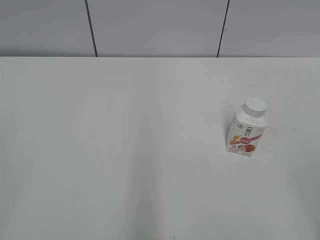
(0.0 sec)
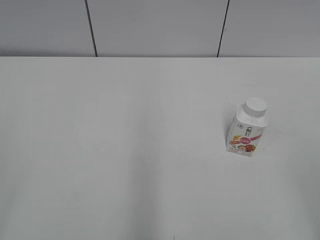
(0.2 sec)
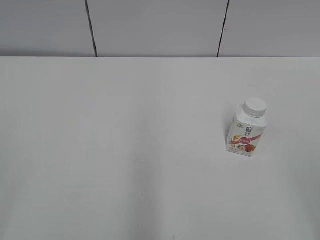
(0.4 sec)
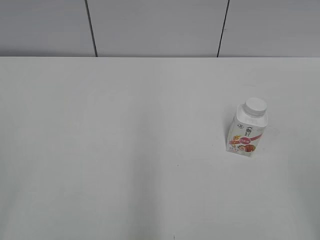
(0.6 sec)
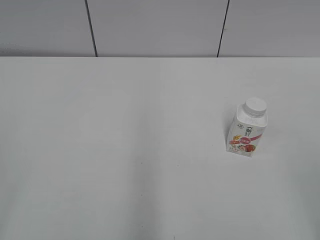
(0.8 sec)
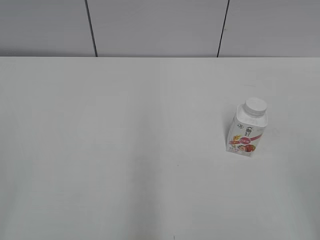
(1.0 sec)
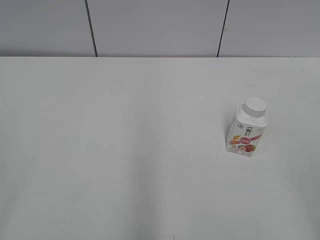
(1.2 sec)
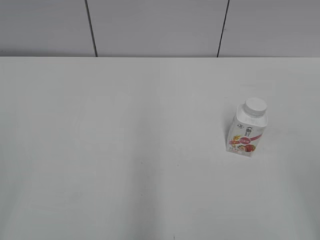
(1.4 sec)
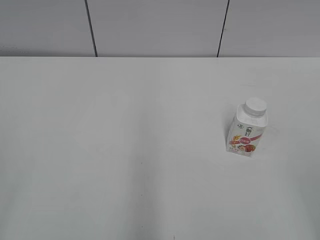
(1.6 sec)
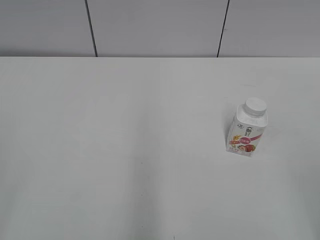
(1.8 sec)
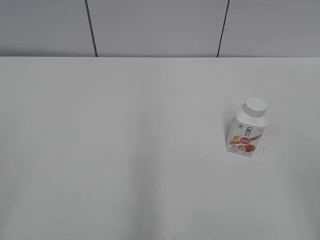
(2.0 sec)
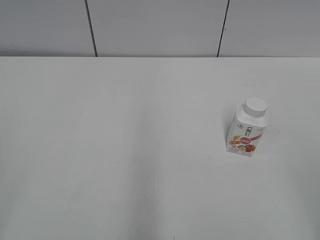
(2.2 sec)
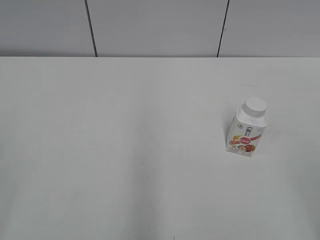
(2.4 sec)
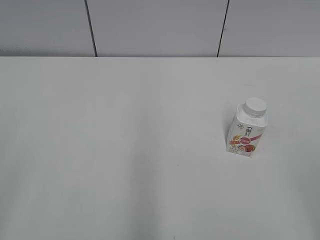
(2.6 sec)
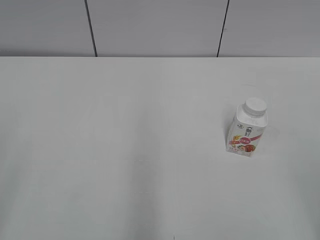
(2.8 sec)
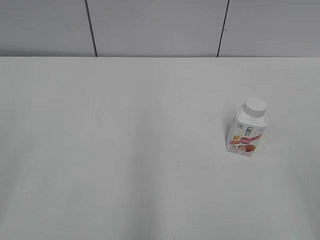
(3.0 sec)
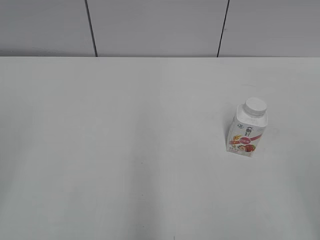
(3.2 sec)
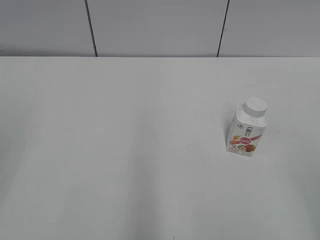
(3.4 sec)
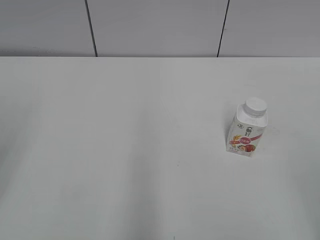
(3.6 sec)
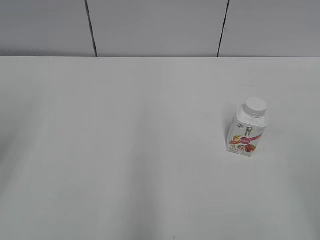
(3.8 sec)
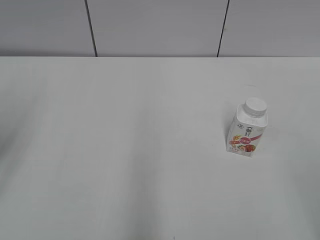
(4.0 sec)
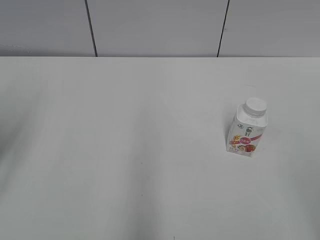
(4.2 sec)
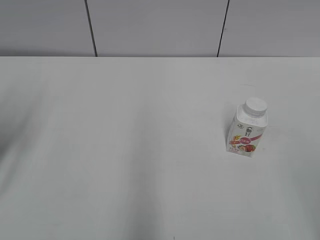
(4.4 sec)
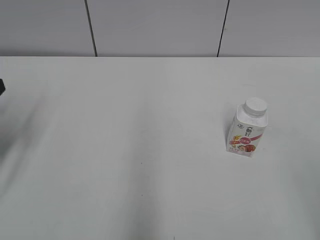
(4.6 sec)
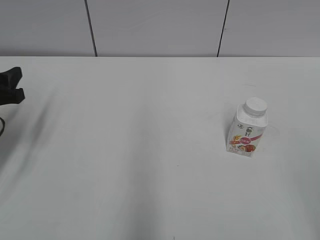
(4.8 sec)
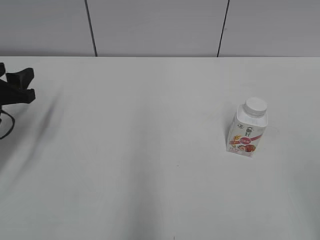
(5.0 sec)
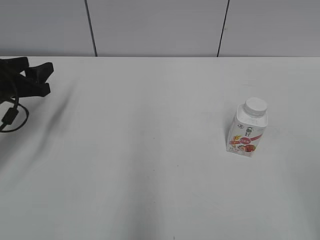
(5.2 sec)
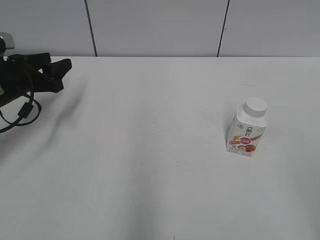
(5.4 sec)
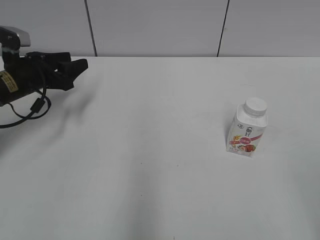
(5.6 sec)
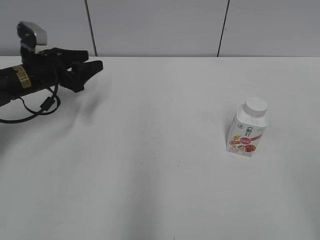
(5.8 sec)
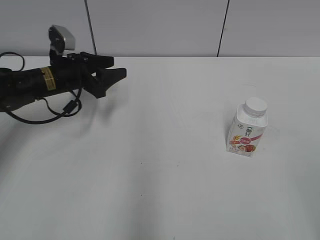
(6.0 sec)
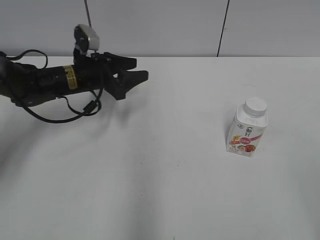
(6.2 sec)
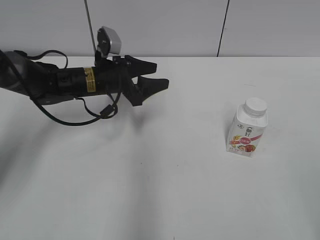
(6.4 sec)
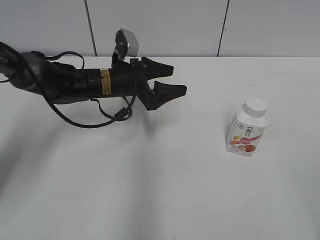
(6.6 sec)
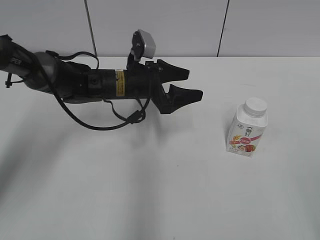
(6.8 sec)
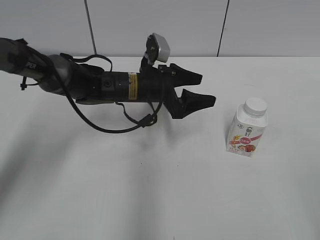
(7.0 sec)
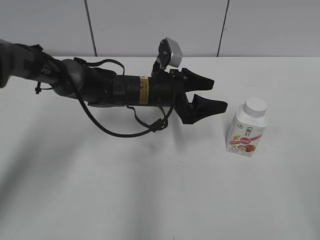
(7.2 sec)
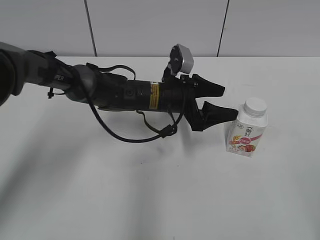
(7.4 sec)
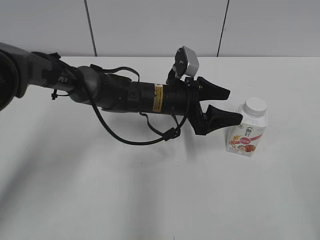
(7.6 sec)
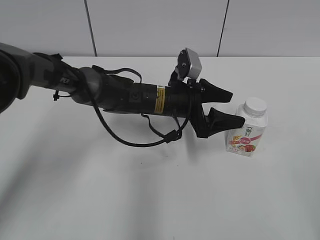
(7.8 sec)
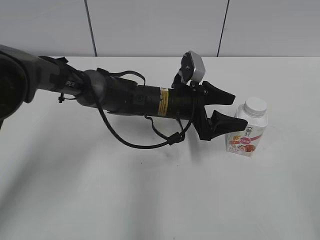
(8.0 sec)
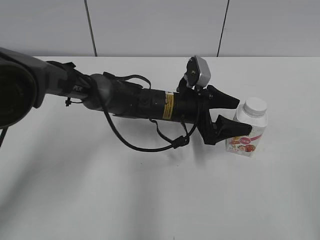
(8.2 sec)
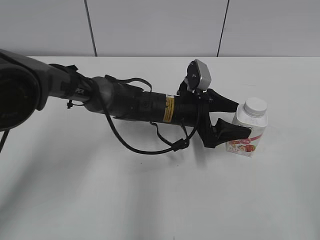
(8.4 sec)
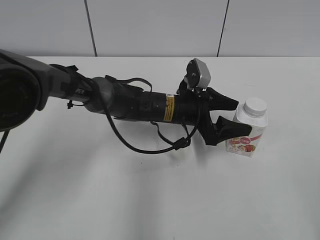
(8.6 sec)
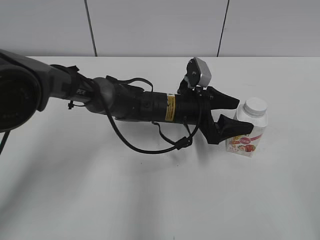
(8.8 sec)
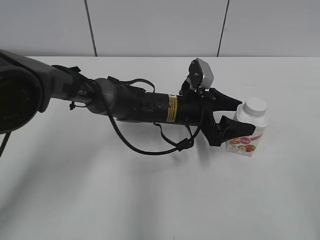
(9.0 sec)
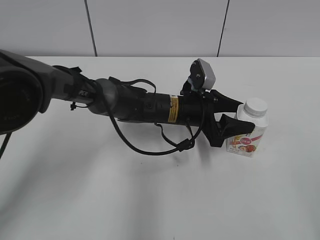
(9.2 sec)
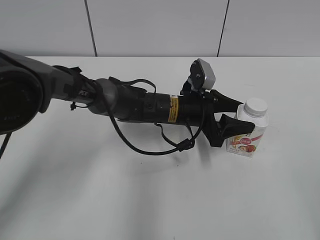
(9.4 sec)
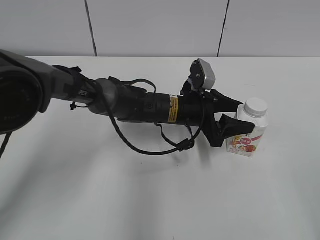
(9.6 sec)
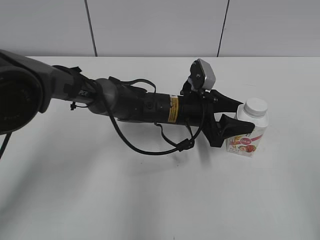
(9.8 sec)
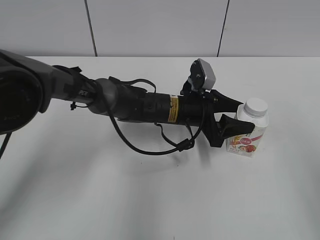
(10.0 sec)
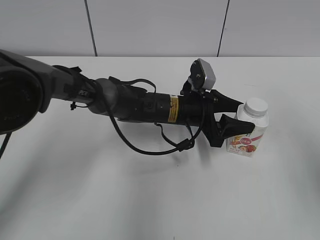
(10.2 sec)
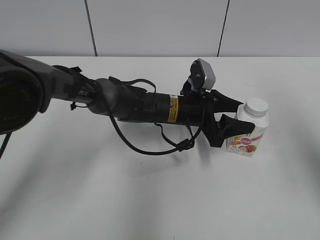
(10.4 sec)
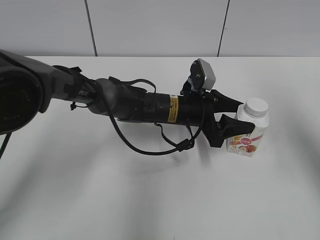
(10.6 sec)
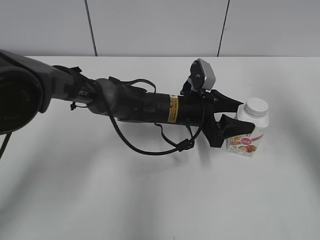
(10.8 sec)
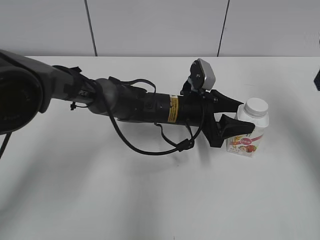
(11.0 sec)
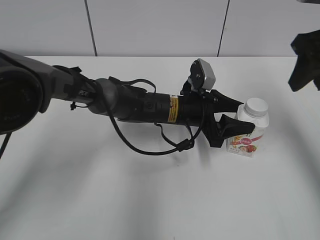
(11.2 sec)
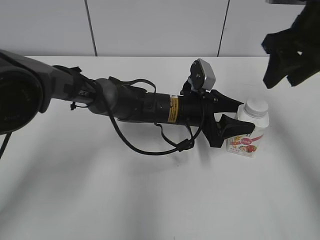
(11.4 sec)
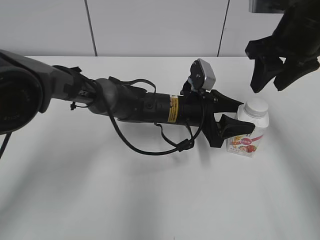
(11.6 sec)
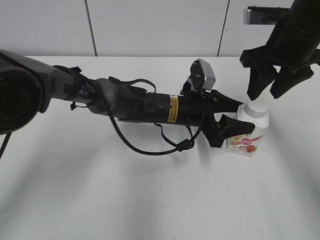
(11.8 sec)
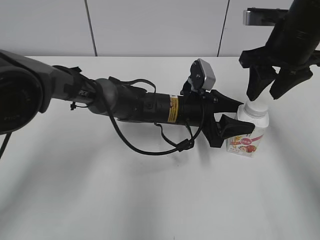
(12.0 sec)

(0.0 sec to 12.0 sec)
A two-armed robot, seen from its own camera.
Step, 0.0 sec - 9.0 sec: Grab the Yili Changqing with the left hand.
3.0 sec - 4.4 sec: The left gripper moves forward, about 20 cm.
4.4 sec - 6.0 sec: The left gripper travels forward, downward and to the right by about 25 cm.
6.0 sec - 7.6 sec: The left gripper shifts some 20 cm to the right, and opens its fingers.
7.6 sec - 9.0 sec: The grippers move only a little.
9.0 sec - 10.4 sec: The right gripper moves forward, some 20 cm.
10.4 sec - 12.0 sec: The right gripper heads forward, to the left and downward, covering approximately 20 cm, and closes up.

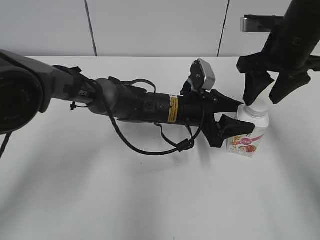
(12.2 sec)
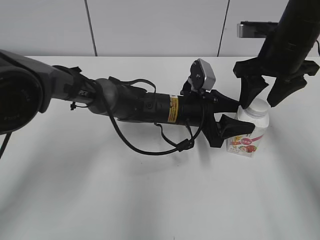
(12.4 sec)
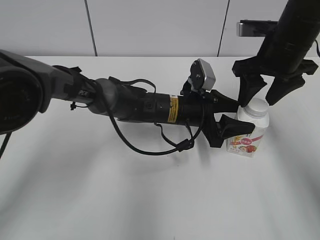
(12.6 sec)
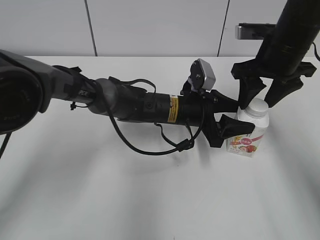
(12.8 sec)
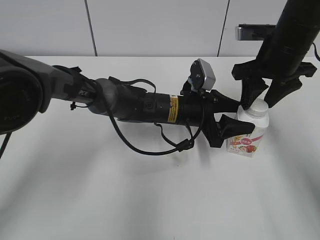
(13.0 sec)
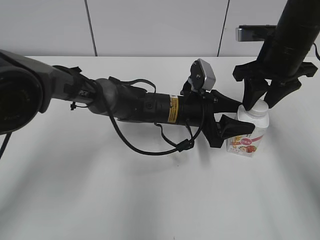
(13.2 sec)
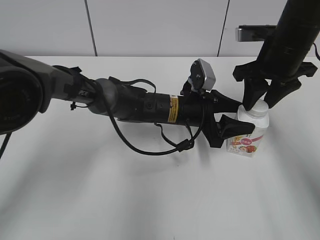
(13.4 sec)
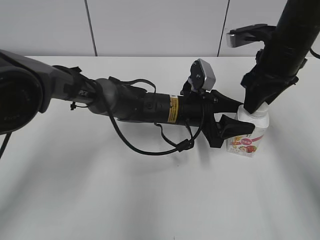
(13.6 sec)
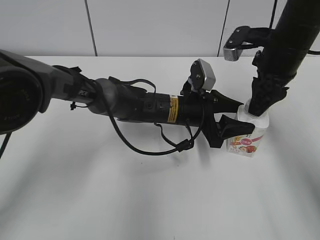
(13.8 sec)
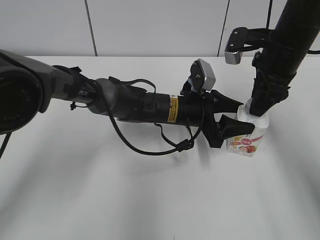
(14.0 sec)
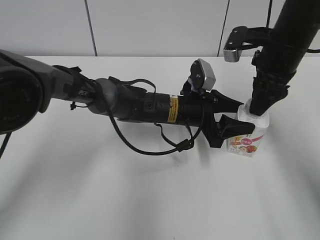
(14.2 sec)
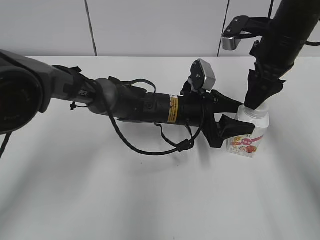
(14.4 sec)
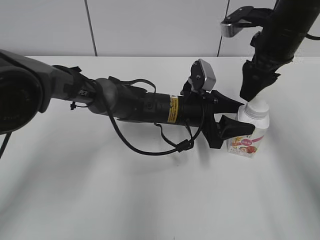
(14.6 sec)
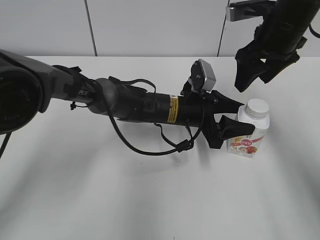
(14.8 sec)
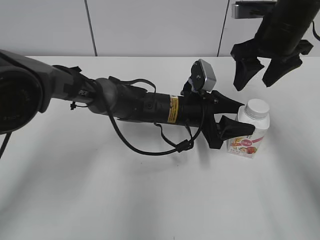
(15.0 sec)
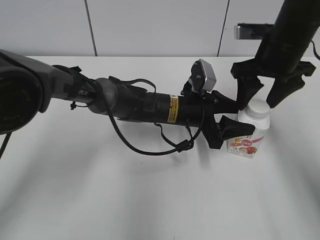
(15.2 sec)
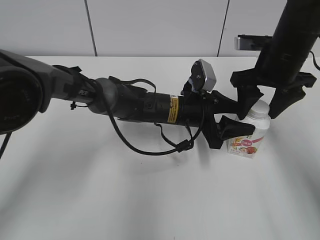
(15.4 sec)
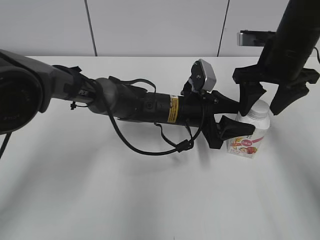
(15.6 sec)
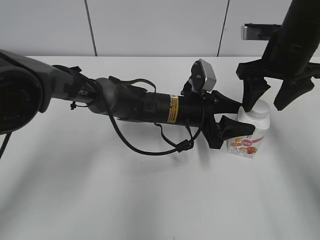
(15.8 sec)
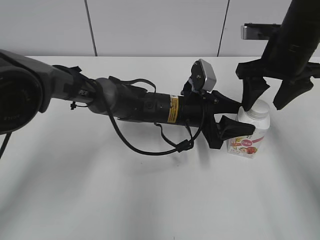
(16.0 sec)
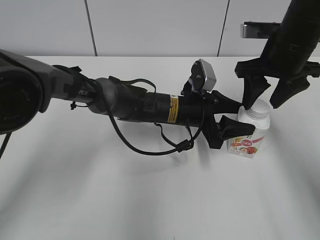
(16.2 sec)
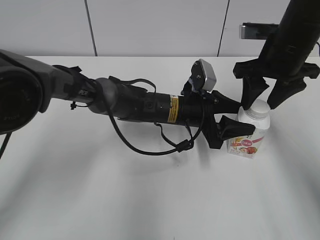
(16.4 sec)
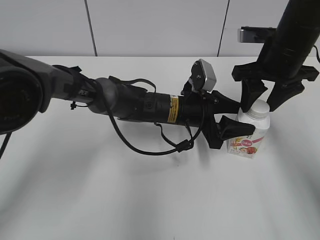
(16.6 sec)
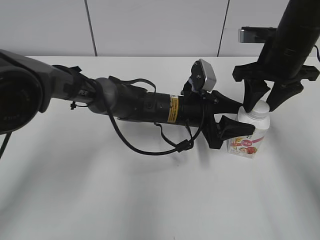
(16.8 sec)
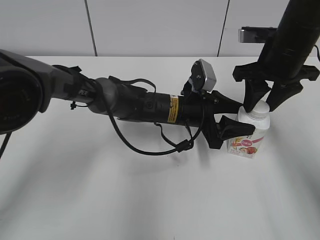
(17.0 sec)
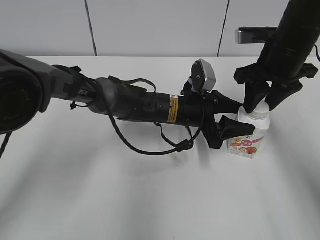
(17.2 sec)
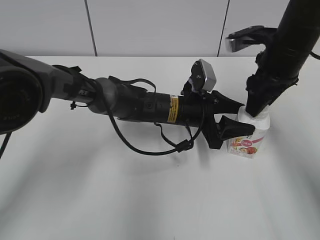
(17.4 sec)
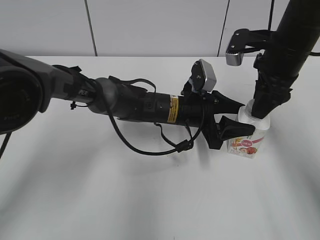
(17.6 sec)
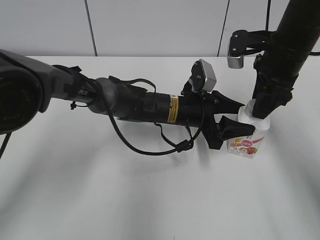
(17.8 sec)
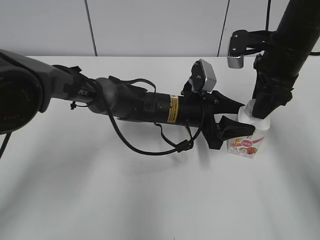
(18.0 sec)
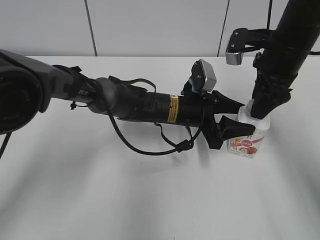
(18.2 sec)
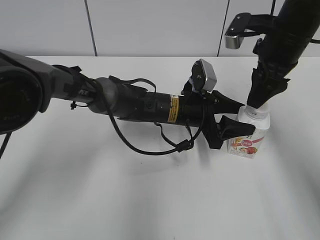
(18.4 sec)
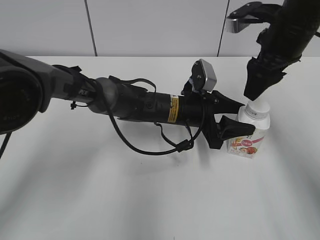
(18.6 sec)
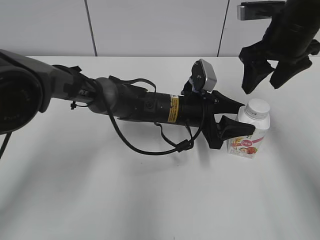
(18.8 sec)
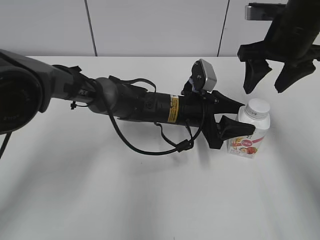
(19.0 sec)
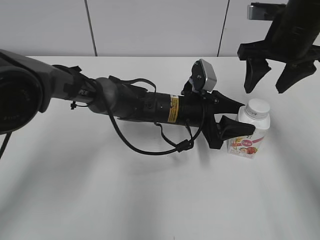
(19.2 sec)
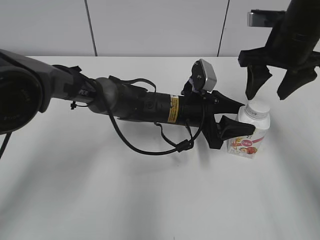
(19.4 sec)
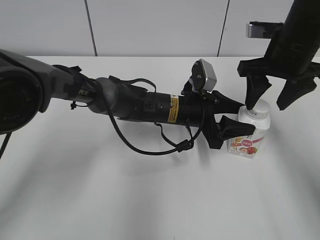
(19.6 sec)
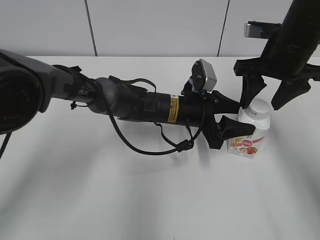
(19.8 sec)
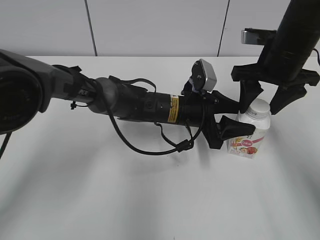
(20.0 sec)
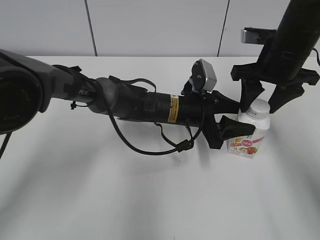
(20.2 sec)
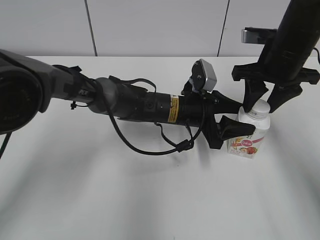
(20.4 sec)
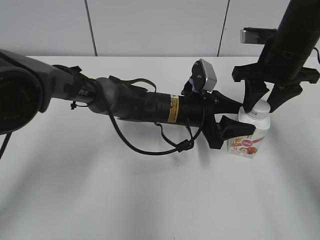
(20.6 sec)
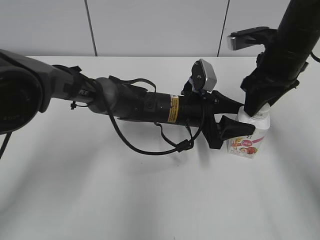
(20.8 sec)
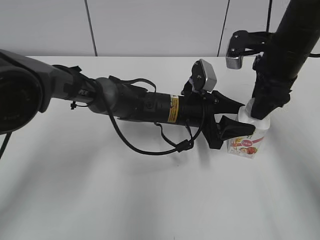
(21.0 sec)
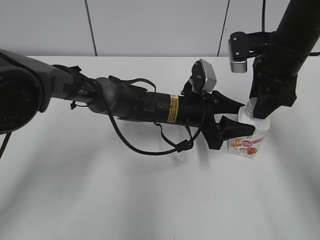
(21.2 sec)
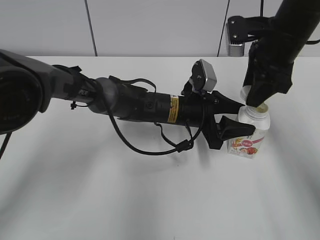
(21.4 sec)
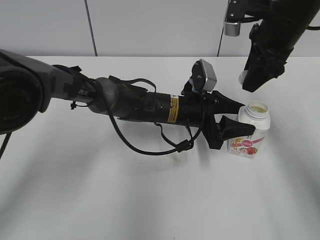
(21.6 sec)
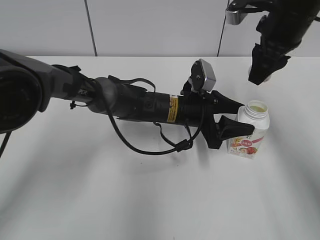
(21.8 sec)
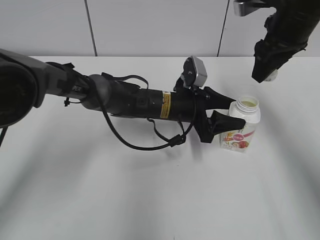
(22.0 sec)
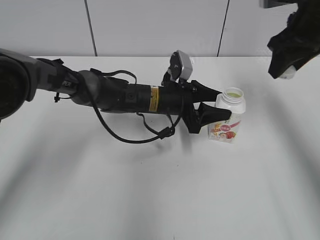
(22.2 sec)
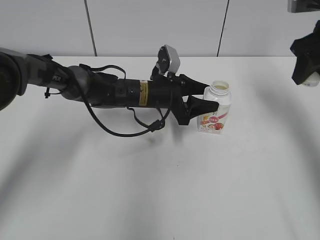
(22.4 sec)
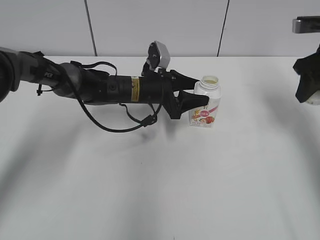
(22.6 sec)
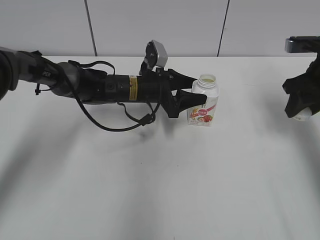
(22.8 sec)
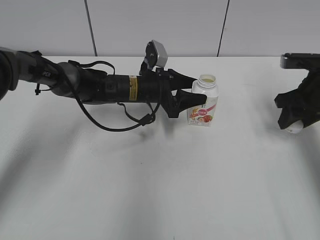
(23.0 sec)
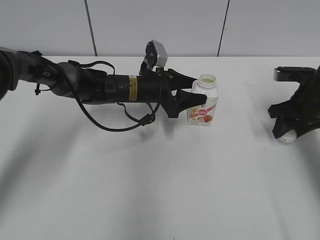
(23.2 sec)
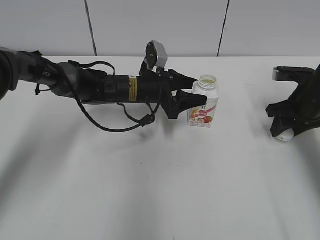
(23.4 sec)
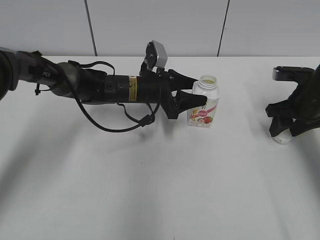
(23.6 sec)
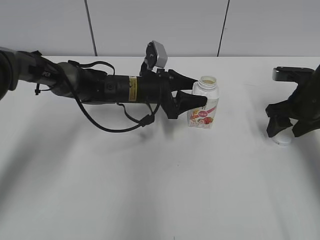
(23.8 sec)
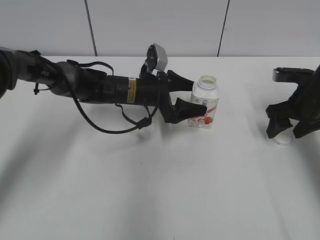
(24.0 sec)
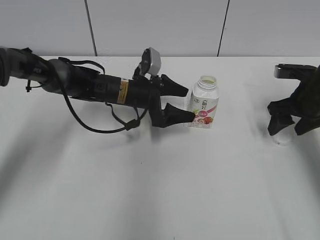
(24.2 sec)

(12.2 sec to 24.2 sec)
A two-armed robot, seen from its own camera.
Step, 21.4 sec - 23.0 sec: Move the Yili Changqing from right to left.
Step, 23.2 sec - 23.6 sec: Place the bottle cap on the right.
12.2 sec - 13.8 sec: The right gripper closes up.
13.8 sec - 15.2 sec: The right gripper opens its fingers.
15.2 sec - 16.6 sec: The right gripper closes.
18.2 sec - 19.8 sec: The right gripper opens its fingers.
19.8 sec - 21.2 sec: The right gripper closes.
21.2 sec - 22.6 sec: The right gripper travels to the right by approximately 10 cm; the left gripper heads to the left and forward, covering some 10 cm.
22.6 sec - 24.2 sec: The left gripper opens up, while the right gripper moves downward, approximately 10 cm, and opens.
